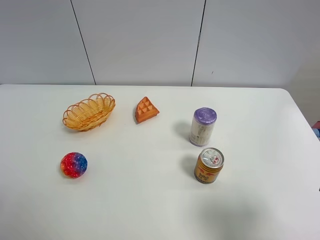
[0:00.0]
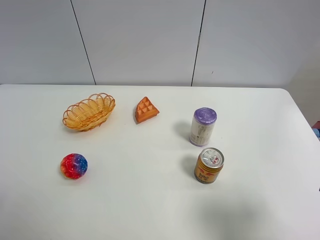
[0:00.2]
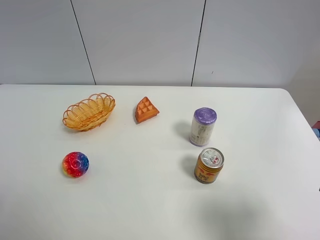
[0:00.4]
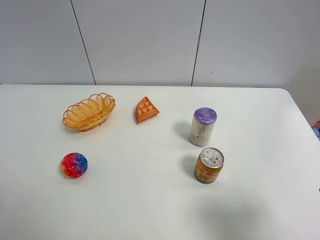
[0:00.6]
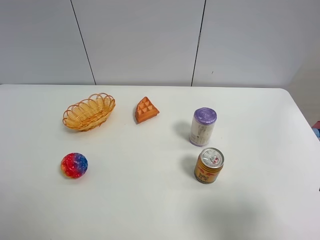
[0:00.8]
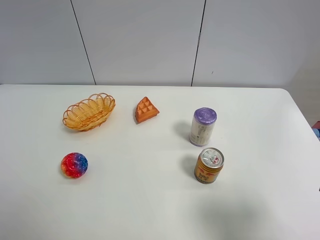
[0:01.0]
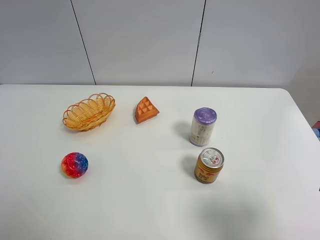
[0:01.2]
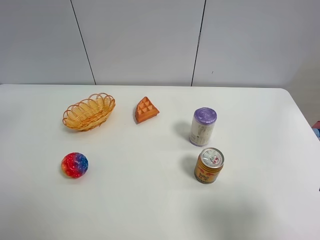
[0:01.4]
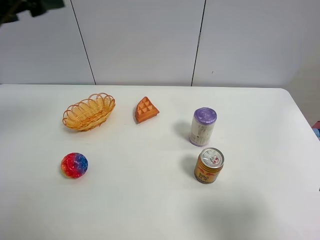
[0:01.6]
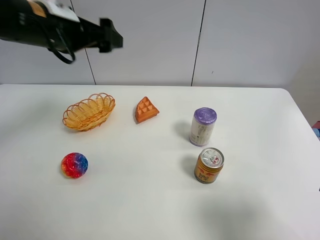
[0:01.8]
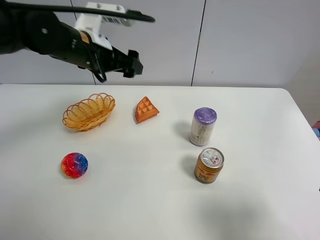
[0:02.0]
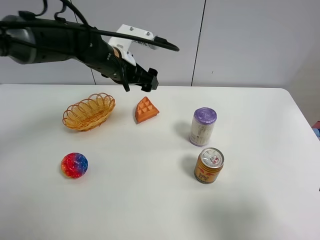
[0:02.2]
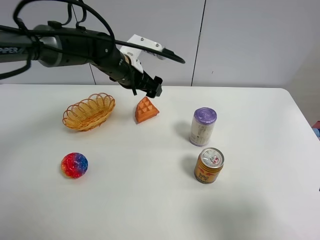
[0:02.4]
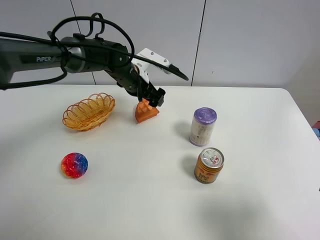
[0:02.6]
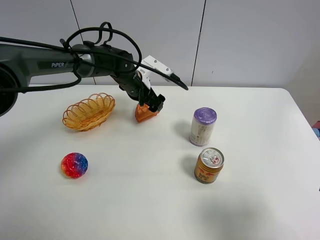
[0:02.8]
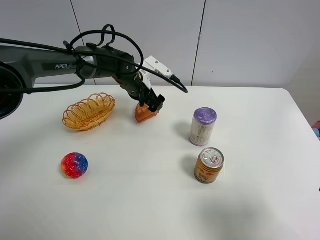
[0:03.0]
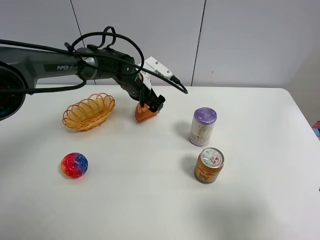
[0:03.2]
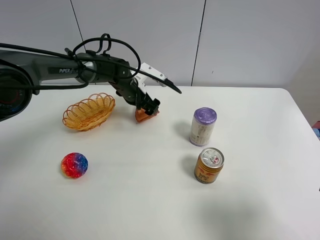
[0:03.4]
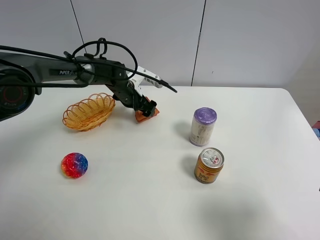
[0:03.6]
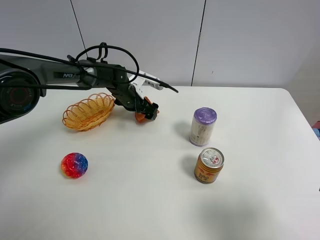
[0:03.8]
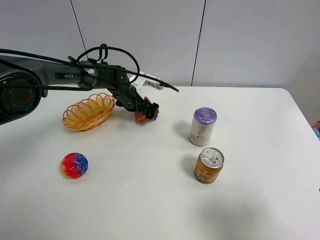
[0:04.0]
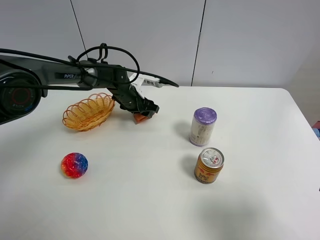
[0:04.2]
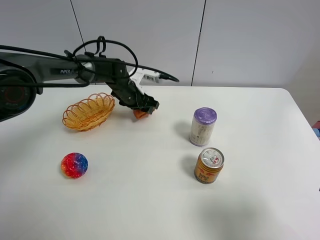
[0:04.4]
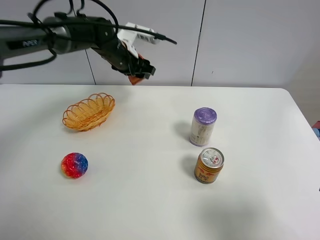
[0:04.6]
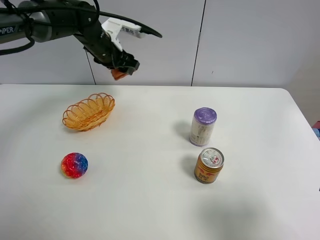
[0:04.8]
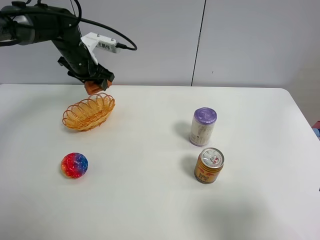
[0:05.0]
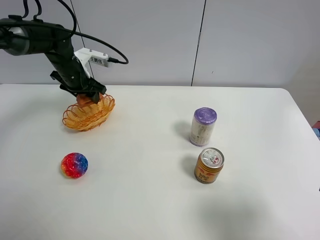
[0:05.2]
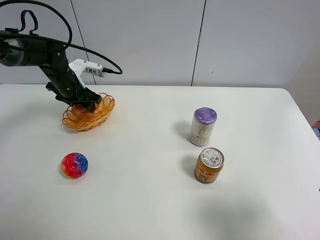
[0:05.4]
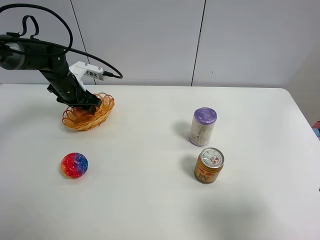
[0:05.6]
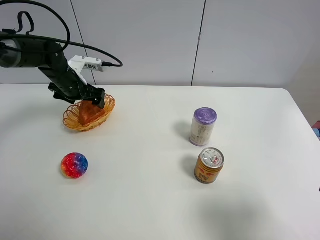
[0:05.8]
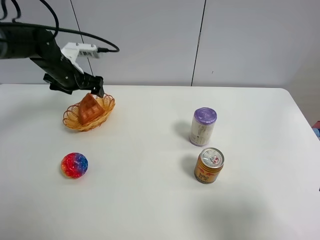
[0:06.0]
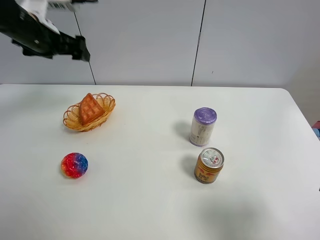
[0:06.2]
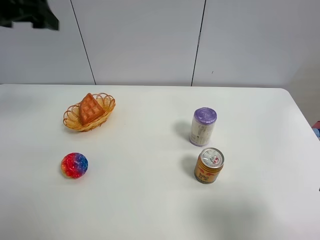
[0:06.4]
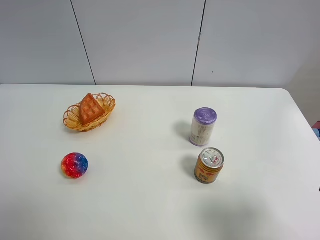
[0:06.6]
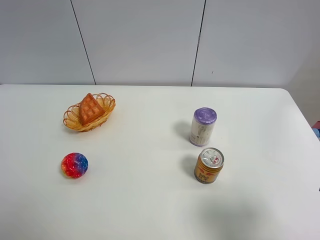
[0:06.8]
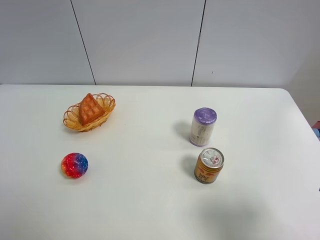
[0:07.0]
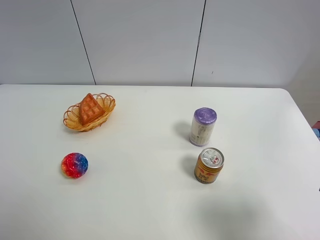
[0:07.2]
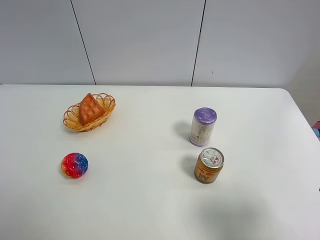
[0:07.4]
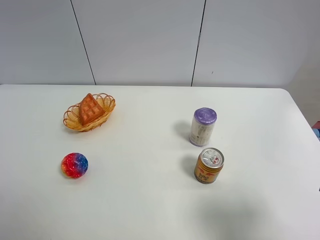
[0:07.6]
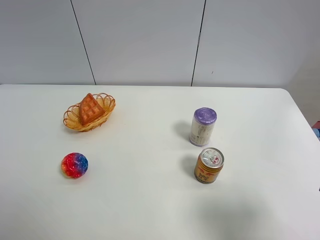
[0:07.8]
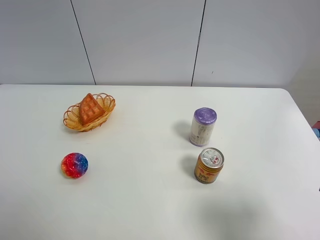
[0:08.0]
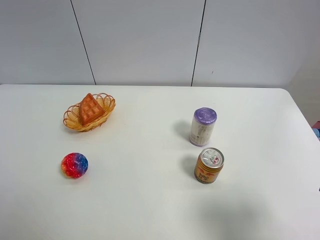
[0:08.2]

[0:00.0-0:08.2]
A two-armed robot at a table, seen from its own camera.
Task of the whole recording: Put the bakery in the basket.
0:00.0 to 0:01.6: The left gripper moves forward and upward, about 30 cm.
0:01.6 to 0:03.2: The left gripper is displaced downward, forward and to the right by about 35 cm.
0:03.2 to 0:05.0: The left gripper heads to the left and upward, covering approximately 15 cm, and closes its fingers.
0:05.0 to 0:06.6: The left gripper moves upward, backward and to the left, approximately 40 cm, and opens its fingers.
